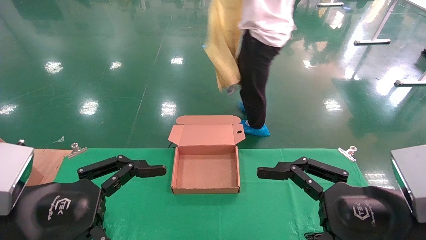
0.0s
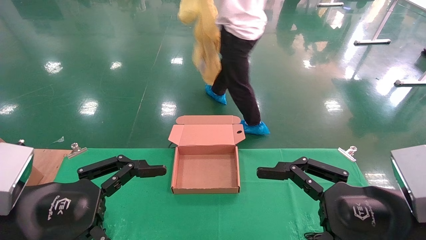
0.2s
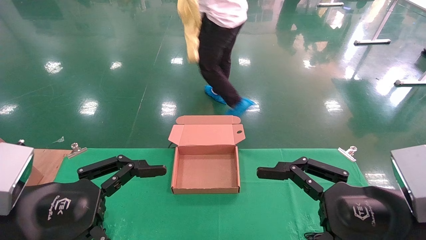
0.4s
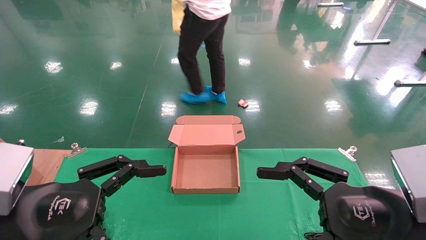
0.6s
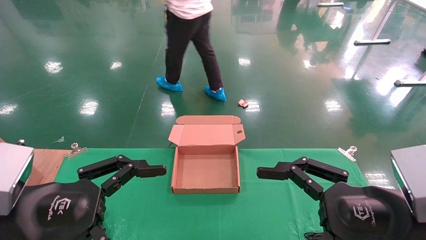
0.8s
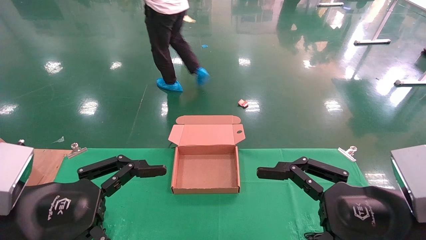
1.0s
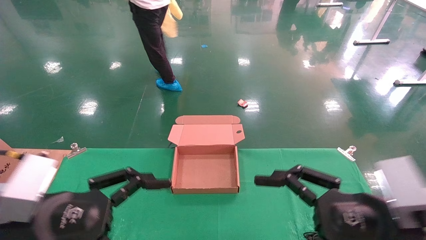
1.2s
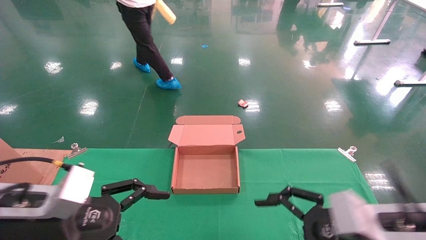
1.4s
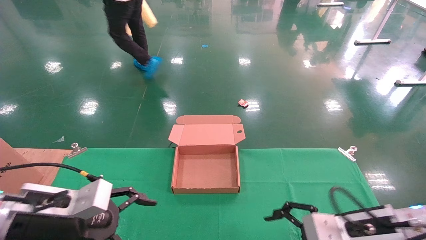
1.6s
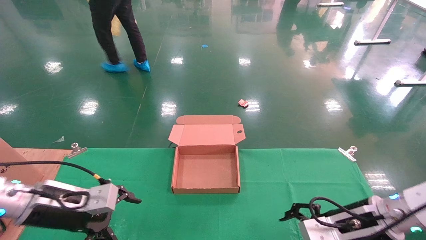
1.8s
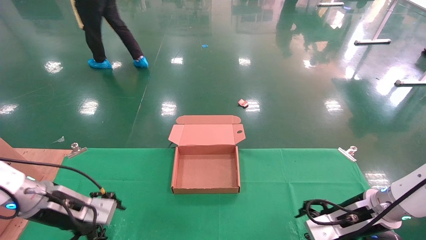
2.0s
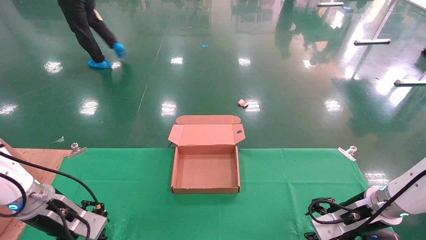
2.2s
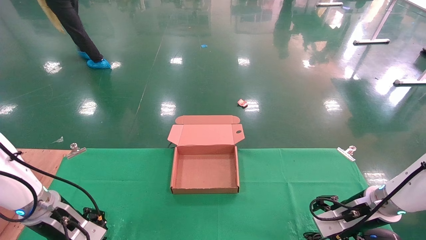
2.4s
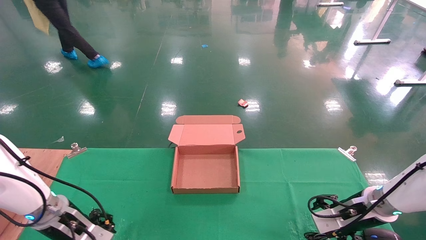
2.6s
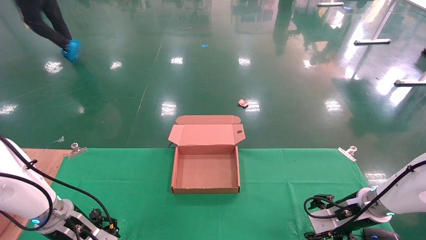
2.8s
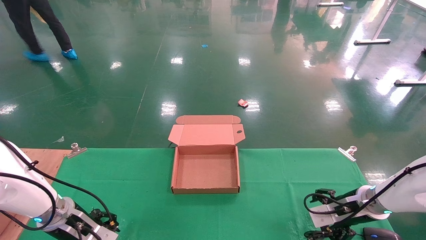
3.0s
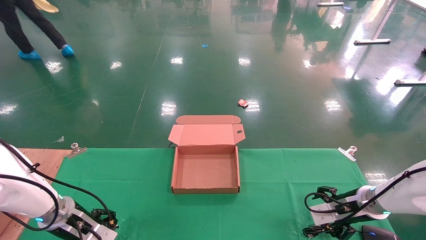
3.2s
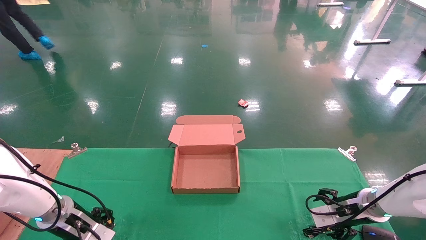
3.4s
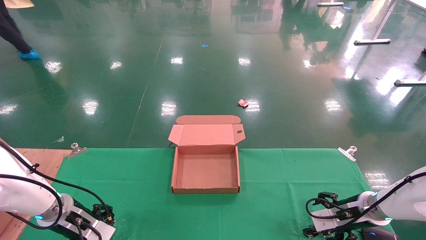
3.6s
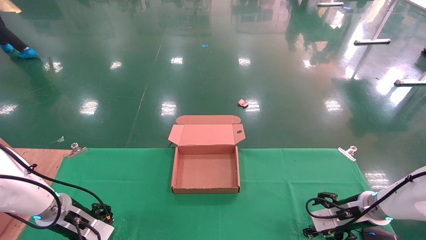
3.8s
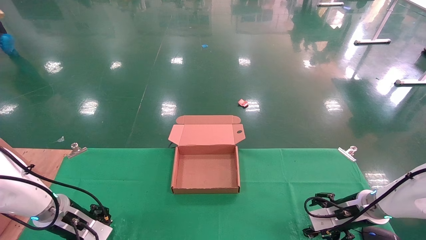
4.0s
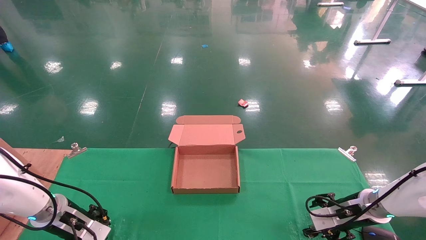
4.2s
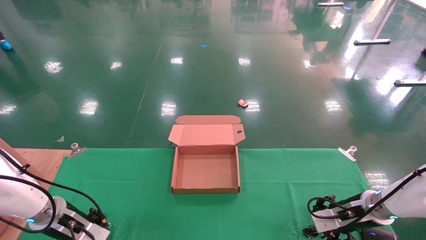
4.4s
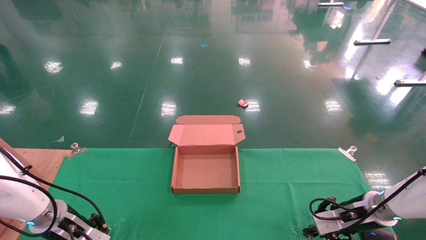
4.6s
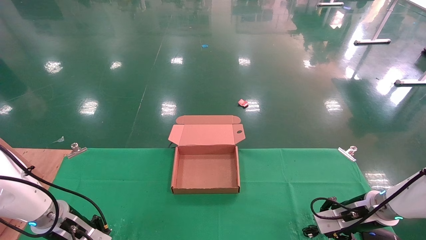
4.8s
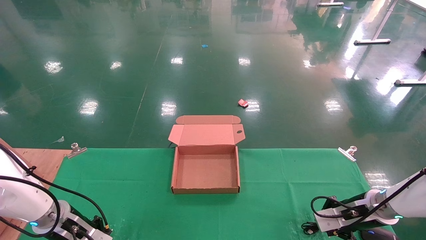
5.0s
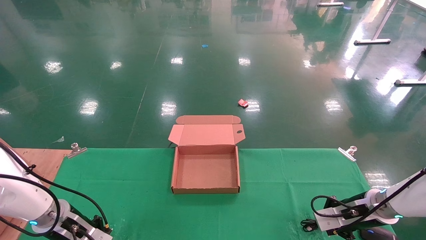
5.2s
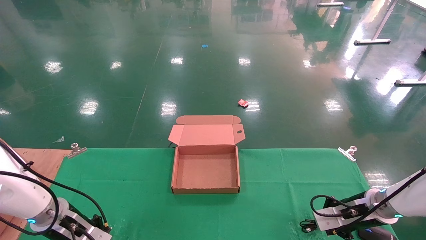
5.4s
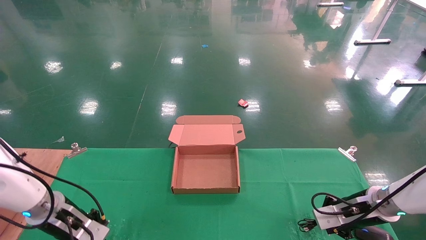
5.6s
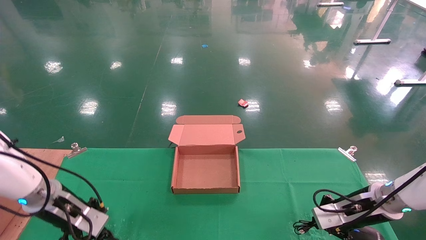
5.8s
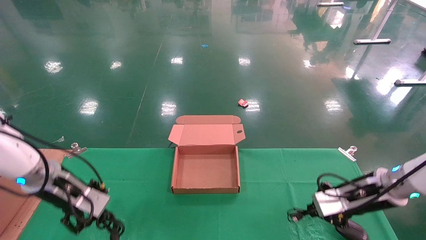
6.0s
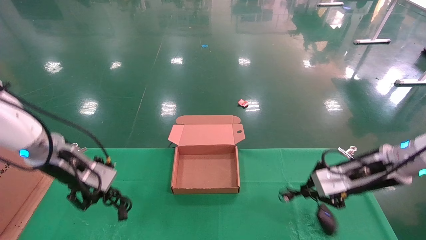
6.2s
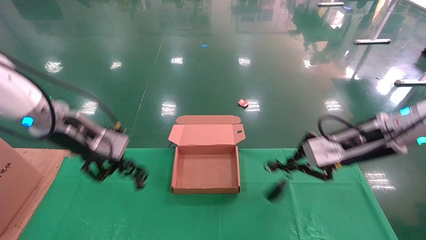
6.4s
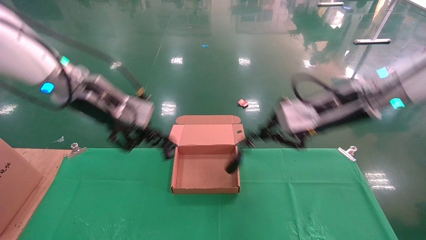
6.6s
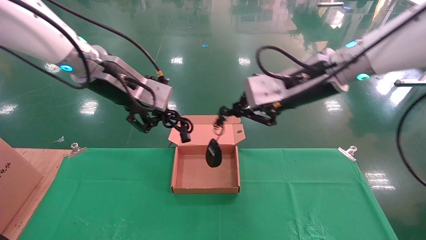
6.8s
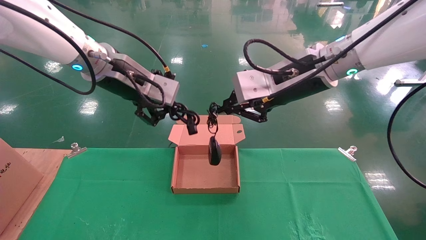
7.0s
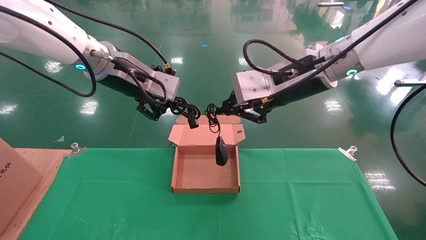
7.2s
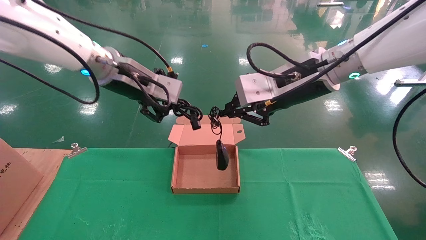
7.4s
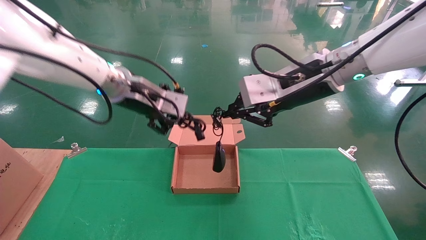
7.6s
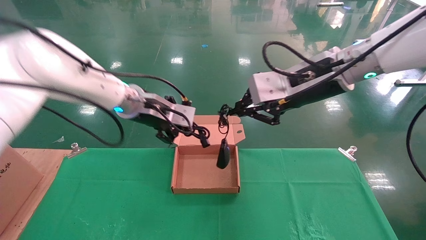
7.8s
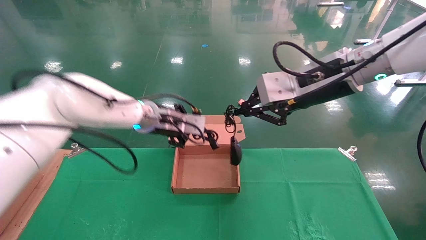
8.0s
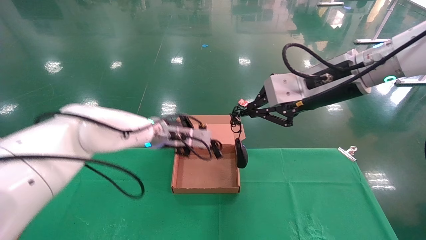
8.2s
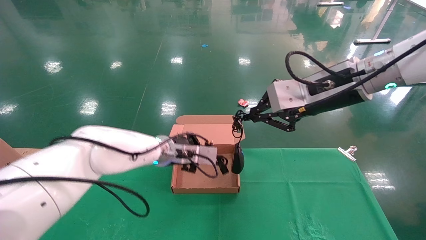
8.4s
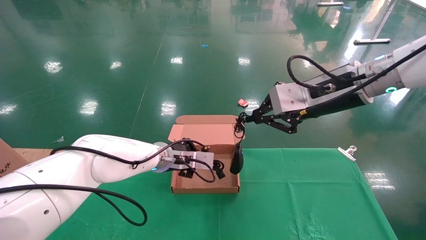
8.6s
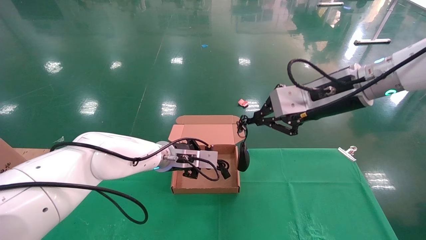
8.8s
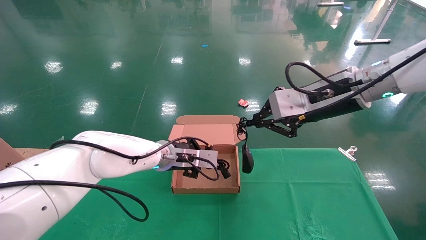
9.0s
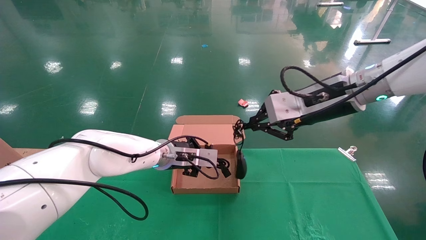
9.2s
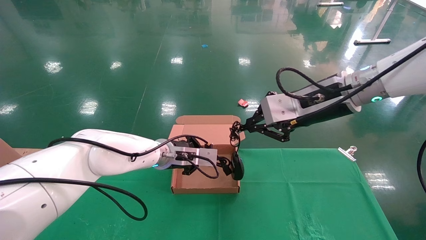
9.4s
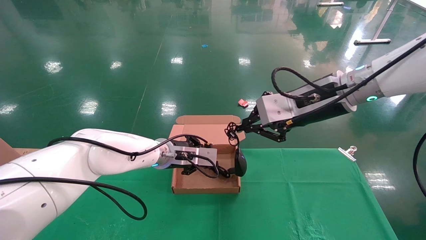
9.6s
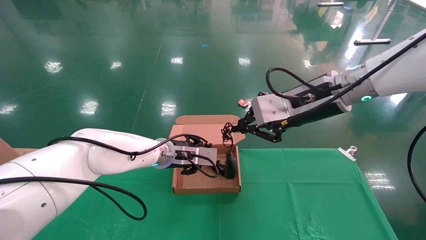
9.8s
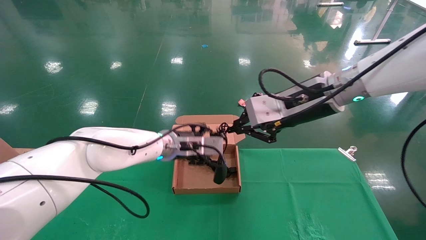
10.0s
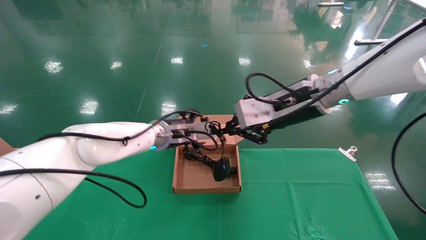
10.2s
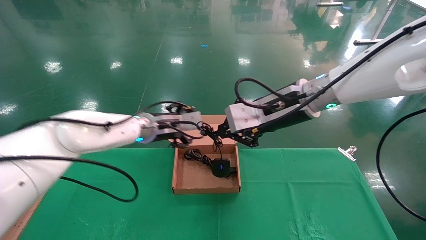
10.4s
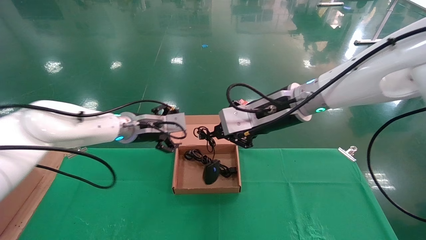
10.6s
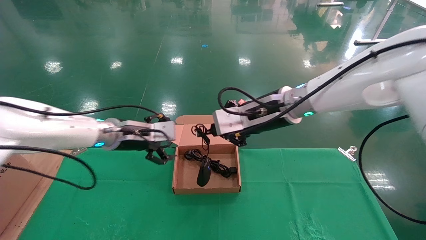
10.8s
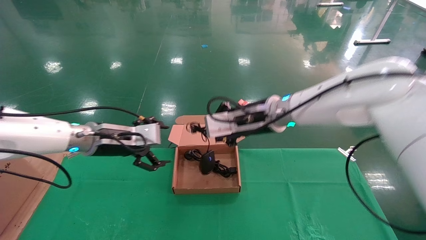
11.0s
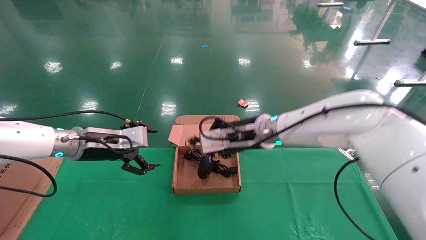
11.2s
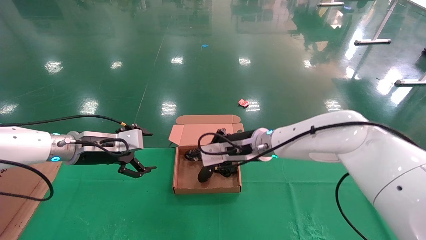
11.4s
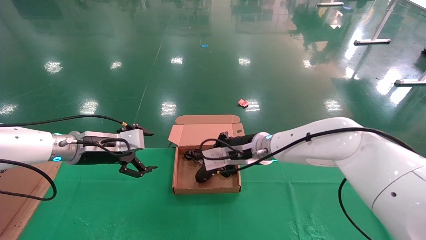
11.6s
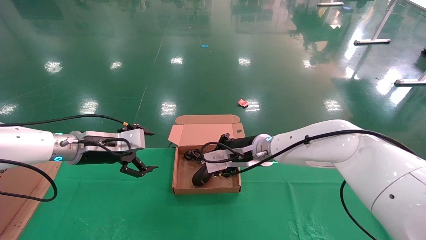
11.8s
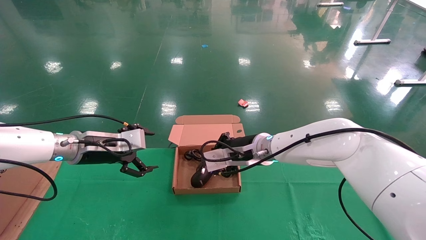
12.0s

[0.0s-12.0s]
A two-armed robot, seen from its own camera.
Step, 2.2s to 6.6s: Grab and lift both the mouse and power cord from the accessory packaging area at the same time.
0.0s to 1.6s: Both grippers travel together forward and downward, roughly 15 cm.
1.6s to 3.0s: The right gripper heads forward, to the right and downward, covering approximately 15 cm, while the left gripper shifts approximately 15 cm forward and downward.
3.0s to 4.4s: There are only small adjustments of the grippers.
4.4s to 6.0s: Both grippers travel together upward, roughly 10 cm. The right gripper closes; the left gripper closes its fingers.
6.0s to 7.6s: The left gripper moves upward and to the right, approximately 25 cm; the right gripper heads upward and to the left, covering approximately 25 cm.
7.6s to 9.0s: The right gripper moves about 5 cm. Meanwhile the left gripper goes roughly 15 cm downward.
9.0s to 10.4s: The right gripper travels to the left by roughly 5 cm. Meanwhile the left gripper moves upward, some 5 cm, and opens its fingers.
10.4s to 12.0s: The right gripper travels downward, forward and to the left by some 15 cm. The left gripper moves to the left and backward, about 15 cm.

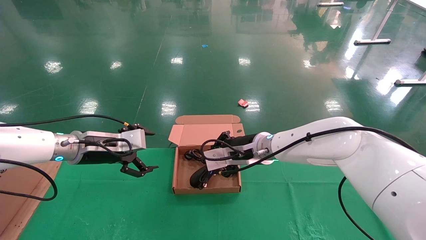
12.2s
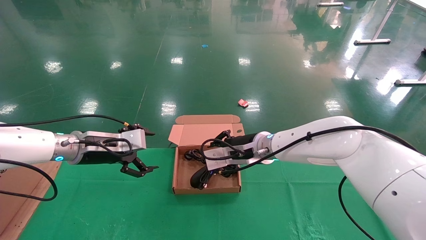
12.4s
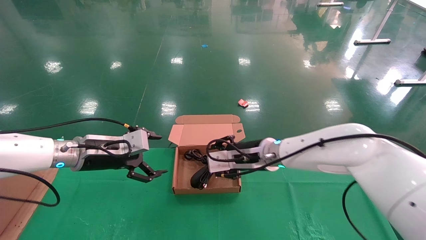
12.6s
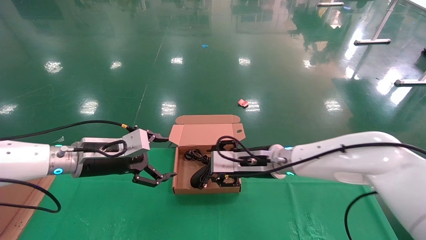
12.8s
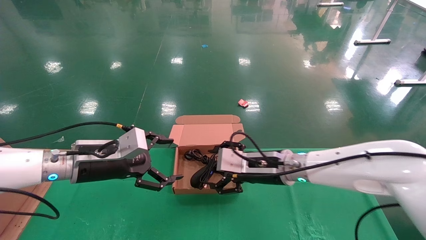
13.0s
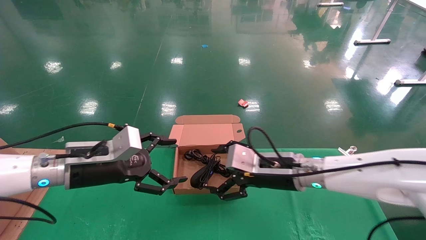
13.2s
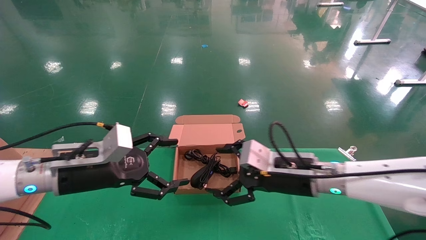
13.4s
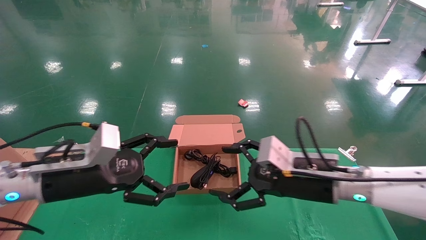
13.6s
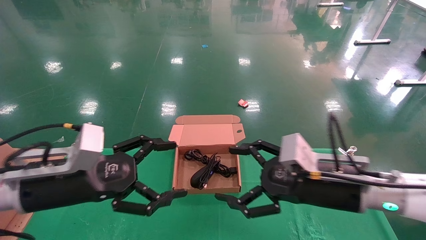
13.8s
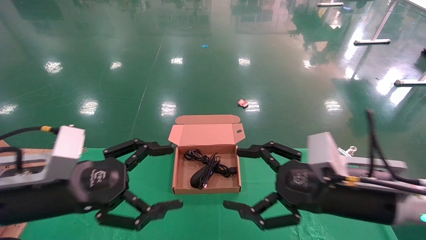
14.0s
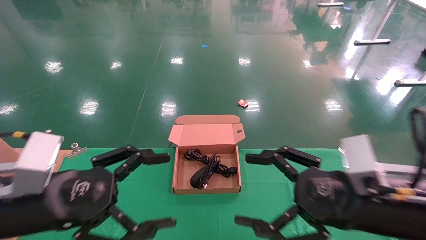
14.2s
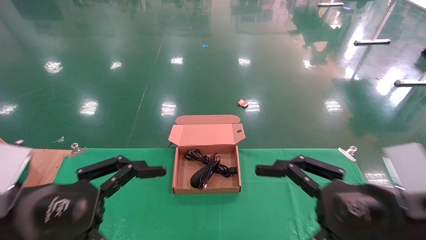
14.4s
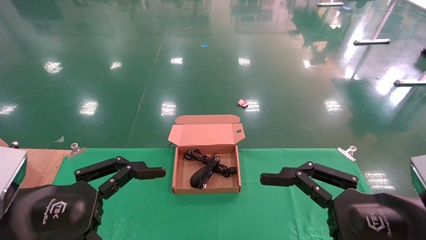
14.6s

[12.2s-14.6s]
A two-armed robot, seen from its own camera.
12.2s to 13.4s: The left gripper shifts about 10 cm backward, while the right gripper travels backward and to the right by roughly 15 cm, and opens its fingers.
13.4s to 14.6s: The right gripper travels backward and to the right by some 20 cm. Meanwhile the left gripper moves backward, approximately 15 cm.
